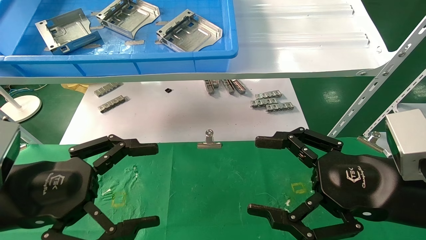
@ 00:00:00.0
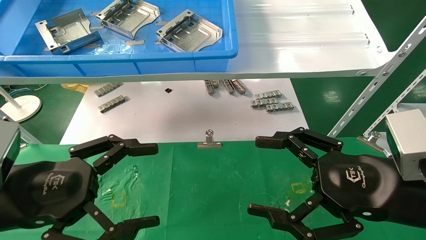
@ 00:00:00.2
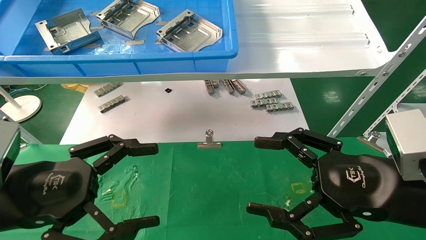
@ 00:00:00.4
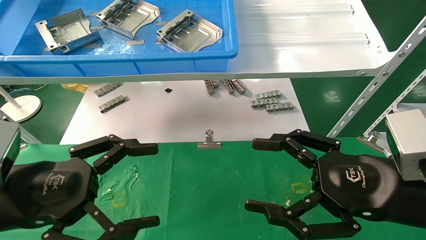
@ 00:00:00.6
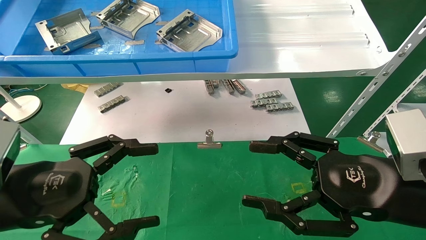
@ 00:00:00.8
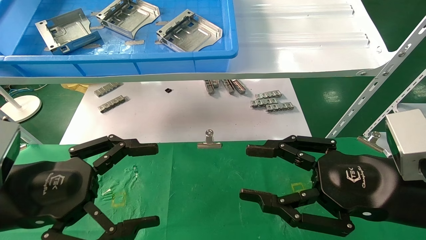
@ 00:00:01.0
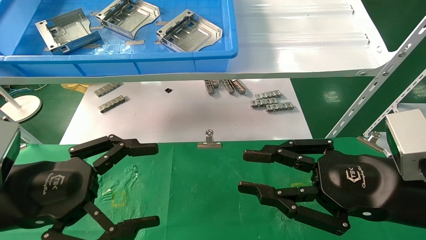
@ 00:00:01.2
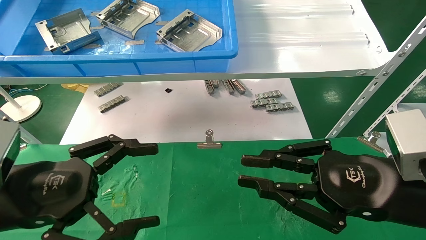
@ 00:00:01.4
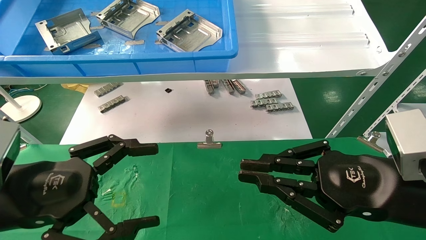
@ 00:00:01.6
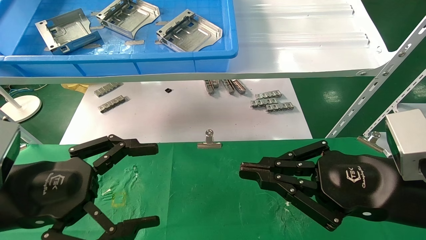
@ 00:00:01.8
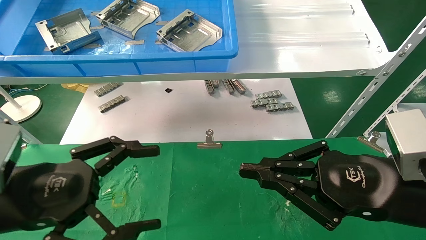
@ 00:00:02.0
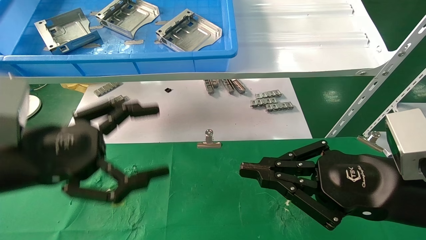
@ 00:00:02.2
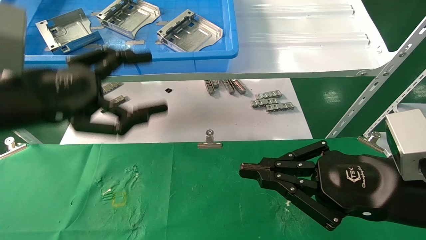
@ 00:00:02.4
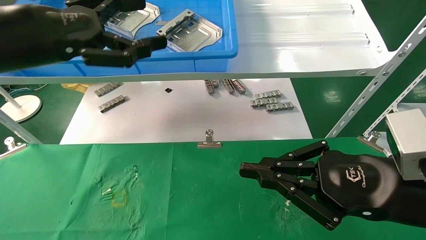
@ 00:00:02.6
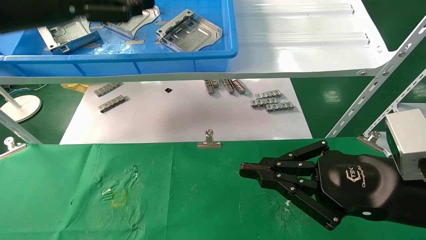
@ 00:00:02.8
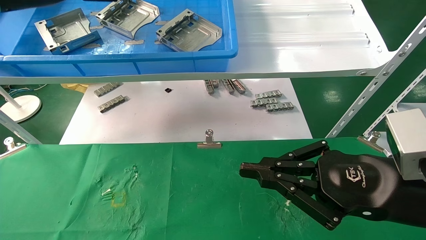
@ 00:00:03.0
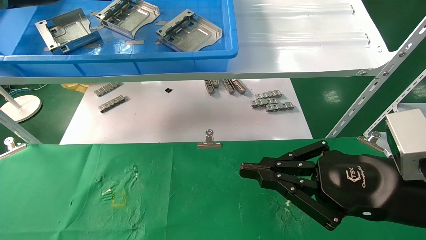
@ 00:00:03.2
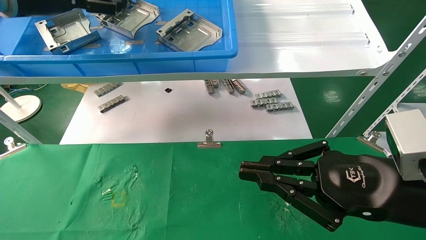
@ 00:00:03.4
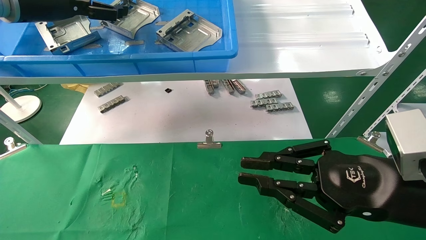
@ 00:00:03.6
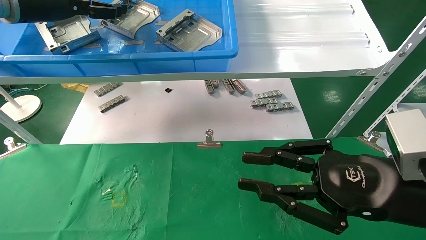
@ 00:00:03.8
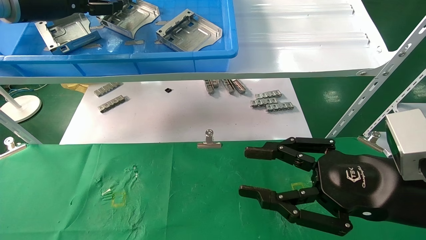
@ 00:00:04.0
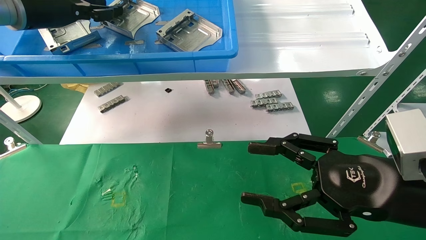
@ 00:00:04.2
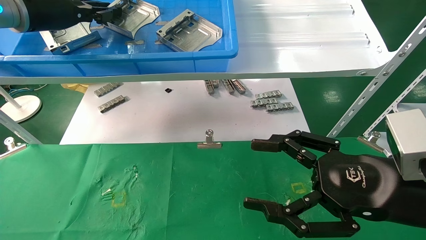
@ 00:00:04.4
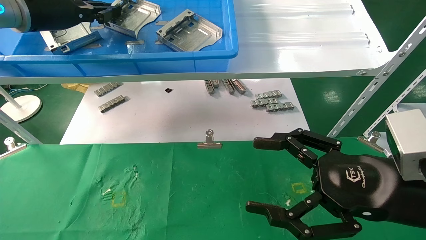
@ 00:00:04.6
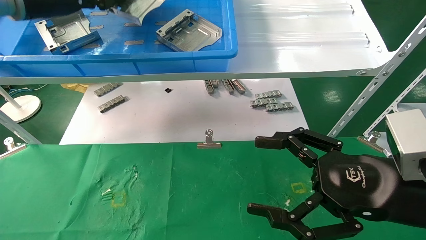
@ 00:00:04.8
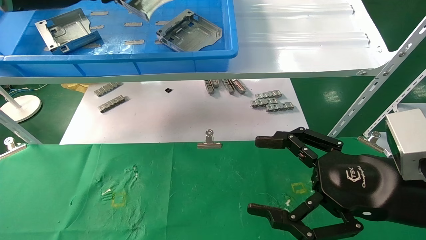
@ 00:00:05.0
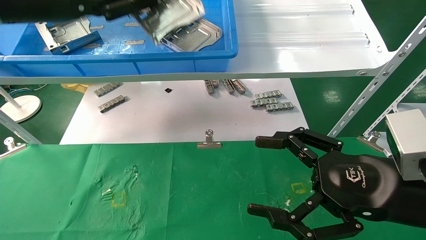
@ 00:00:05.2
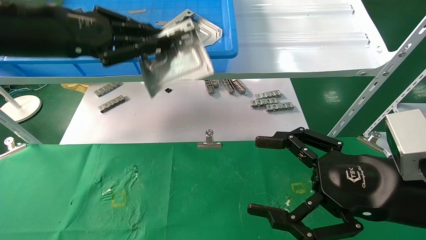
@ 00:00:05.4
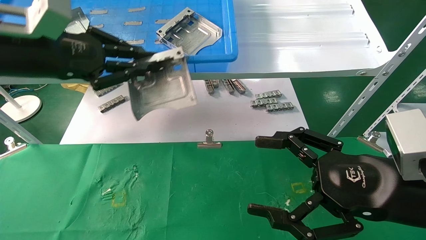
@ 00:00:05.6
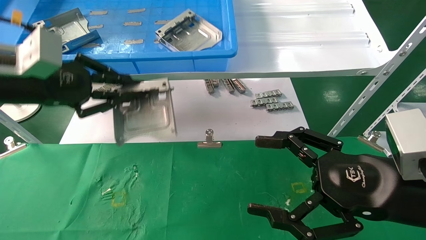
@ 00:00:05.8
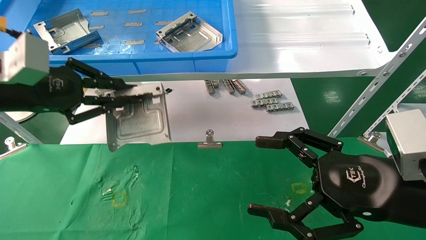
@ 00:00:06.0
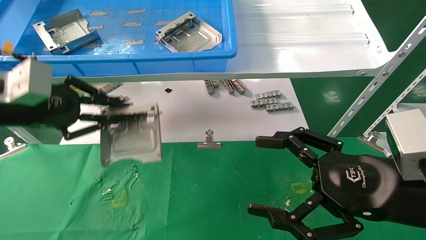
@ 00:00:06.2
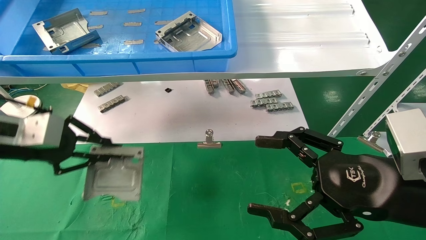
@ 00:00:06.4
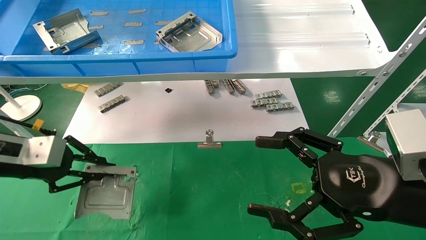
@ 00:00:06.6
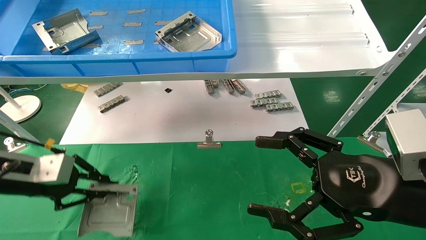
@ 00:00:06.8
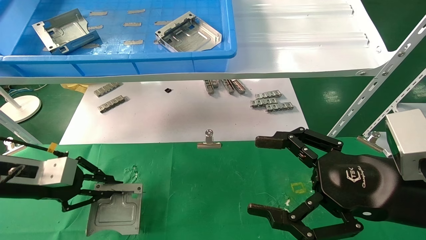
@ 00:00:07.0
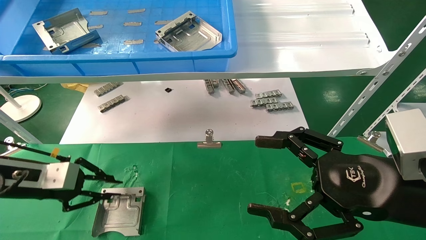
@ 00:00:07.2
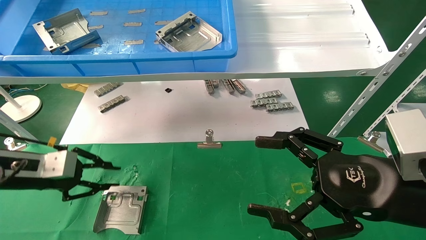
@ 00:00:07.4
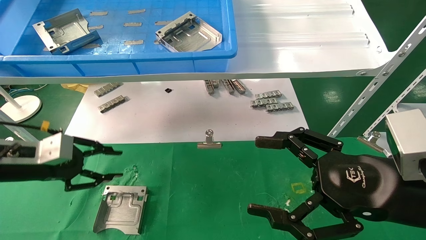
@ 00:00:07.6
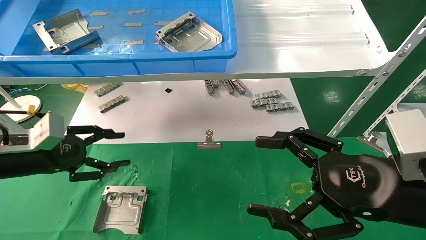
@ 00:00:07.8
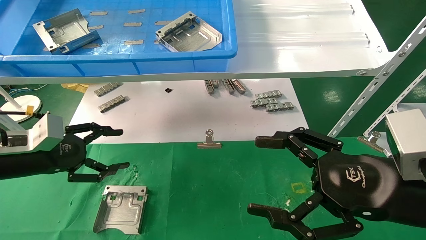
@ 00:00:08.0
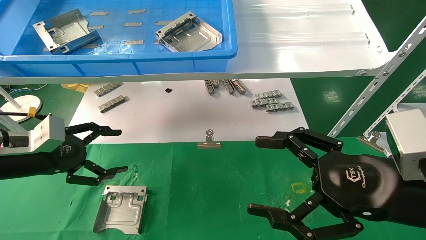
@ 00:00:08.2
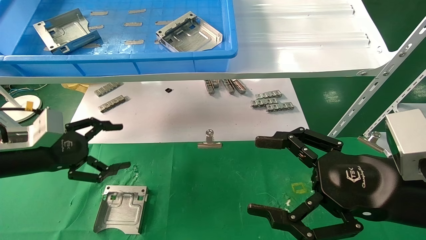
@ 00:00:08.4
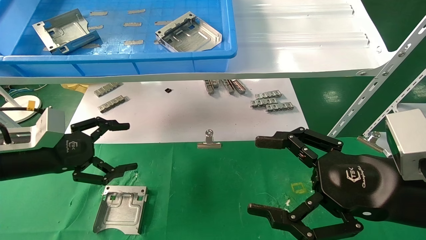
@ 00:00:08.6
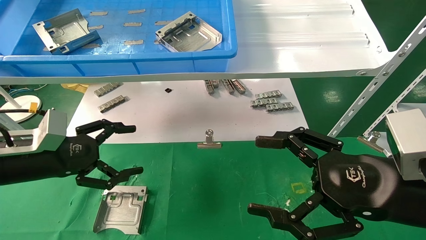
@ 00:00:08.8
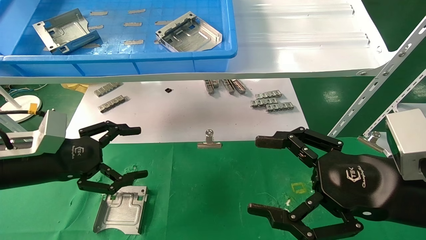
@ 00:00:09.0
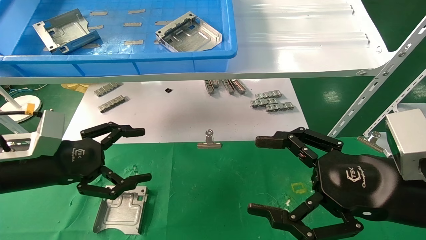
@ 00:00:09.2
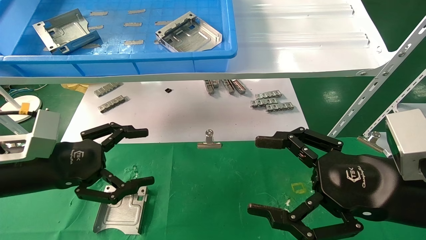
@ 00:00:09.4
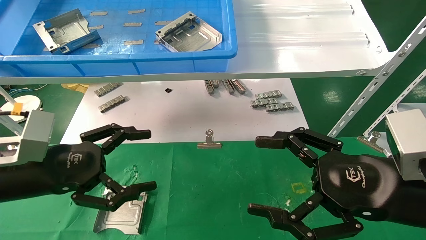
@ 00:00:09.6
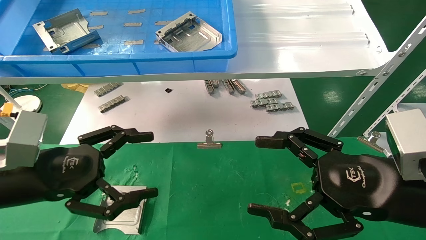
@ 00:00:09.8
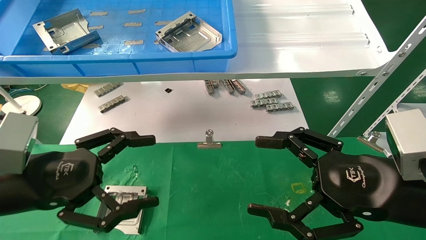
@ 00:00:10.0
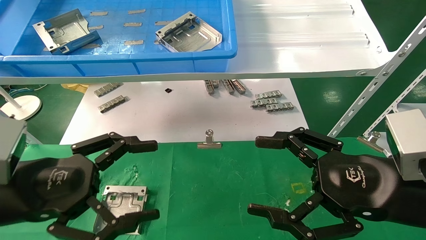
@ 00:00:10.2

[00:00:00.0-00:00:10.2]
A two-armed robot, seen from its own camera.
Task of the whole recording: use the mechanical arm to pick up the parts and place them on the table.
Step, 00:00:02.4 to 00:00:04.6: Pick up the hard drive bracket from the feeding area.
Step, 00:00:04.8 to 00:00:07.6: Place the hard drive bracket into the box.
00:00:00.0 to 00:00:01.4: The right gripper closes up.
00:00:01.4 to 00:00:03.0: The left gripper heads upward and forward, covering some 30 cm.
00:00:03.0 to 00:00:04.4: The left gripper closes up. Meanwhile the right gripper opens its fingers.
00:00:04.4 to 00:00:05.8: The left gripper moves backward and downward, about 15 cm.
00:00:05.8 to 00:00:07.2: The left gripper moves downward, roughly 20 cm.
00:00:07.2 to 00:00:08.8: The left gripper opens.
00:00:08.8 to 00:00:10.2: The left gripper shifts approximately 10 cm backward and to the right.
